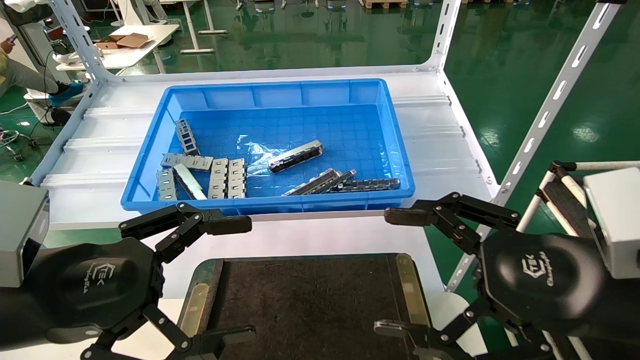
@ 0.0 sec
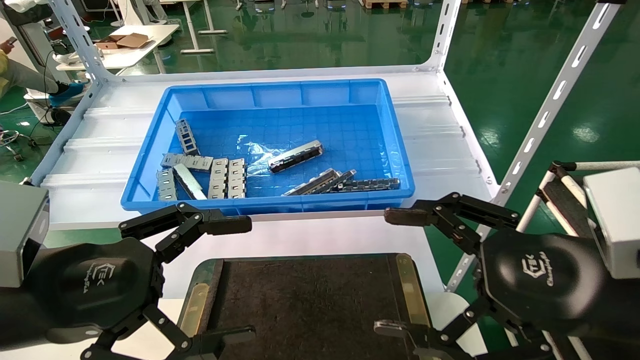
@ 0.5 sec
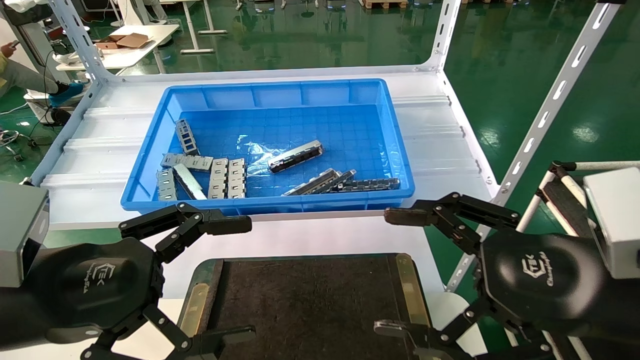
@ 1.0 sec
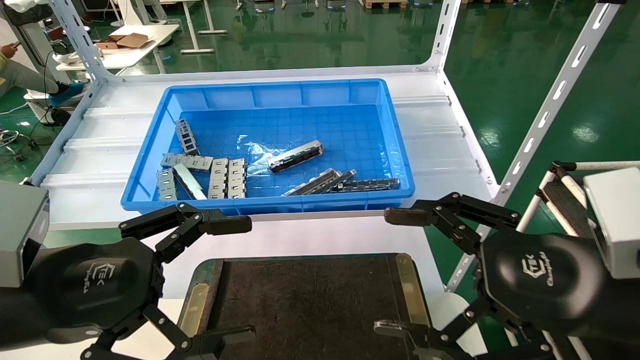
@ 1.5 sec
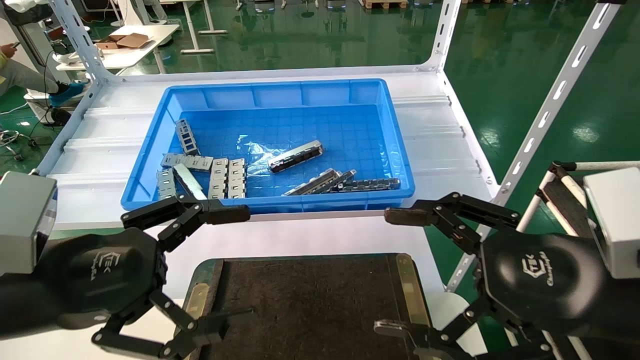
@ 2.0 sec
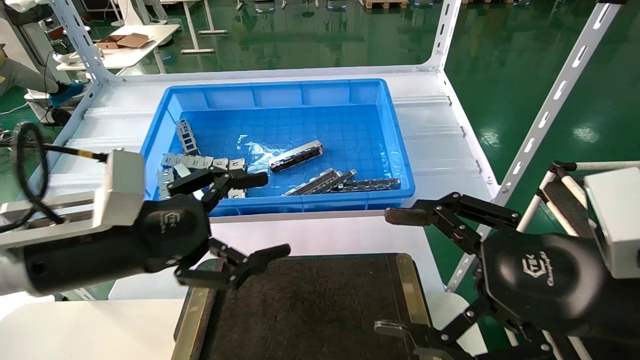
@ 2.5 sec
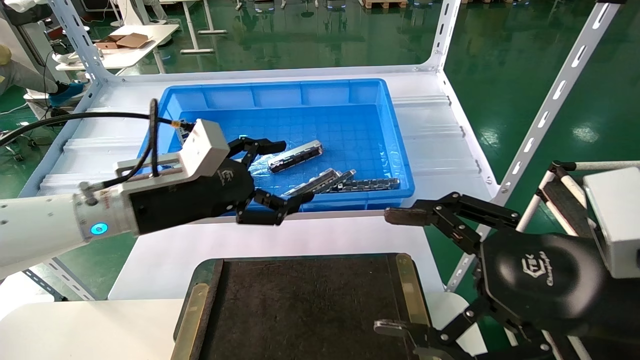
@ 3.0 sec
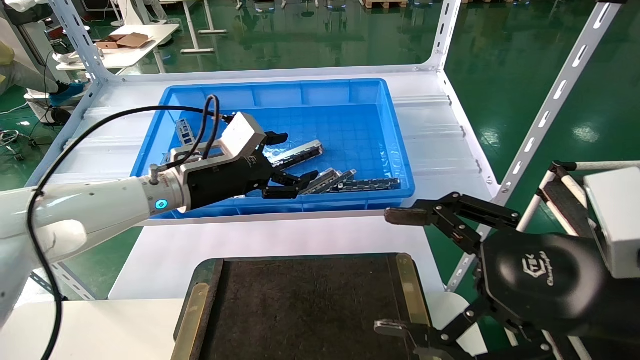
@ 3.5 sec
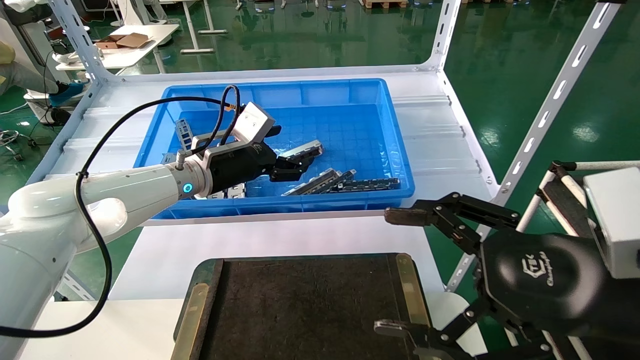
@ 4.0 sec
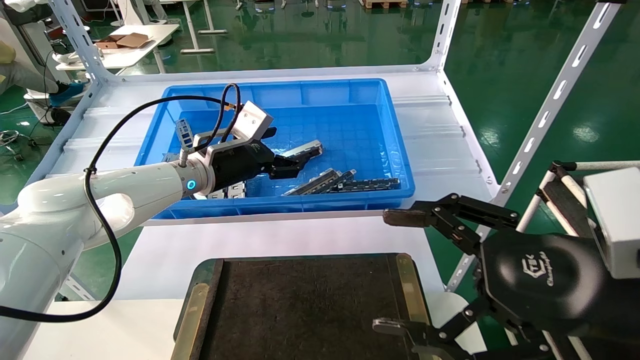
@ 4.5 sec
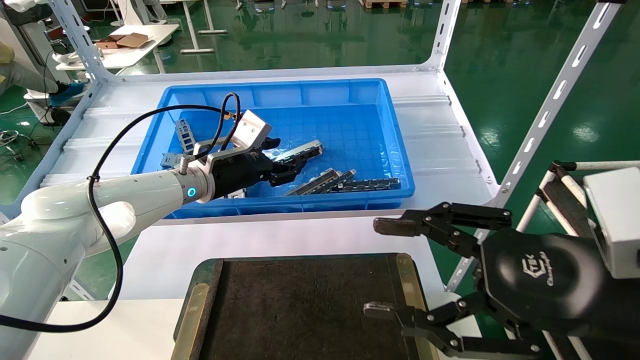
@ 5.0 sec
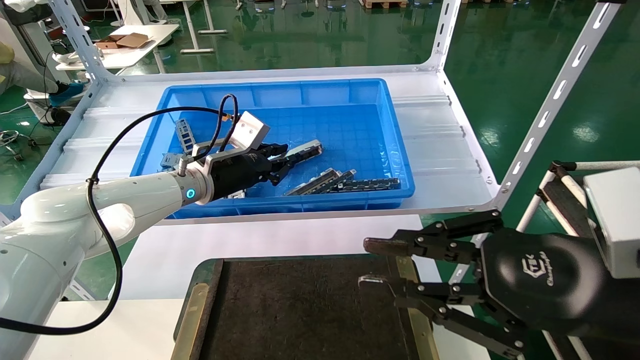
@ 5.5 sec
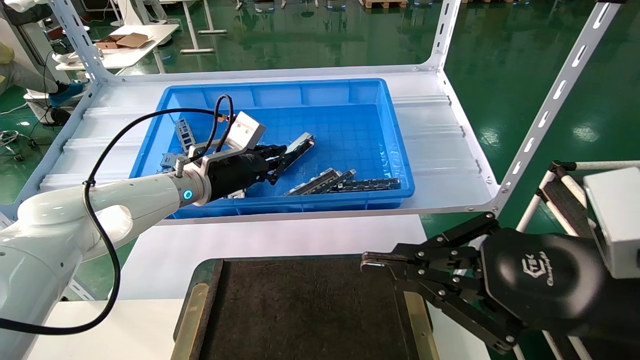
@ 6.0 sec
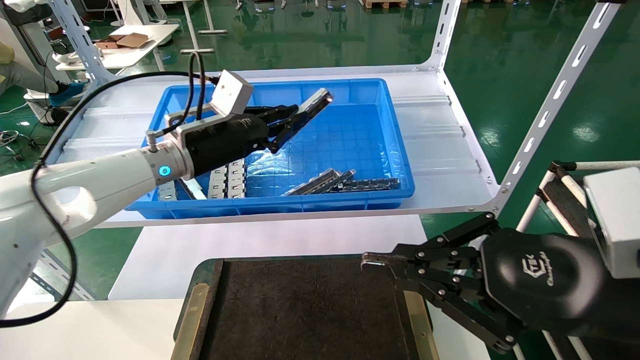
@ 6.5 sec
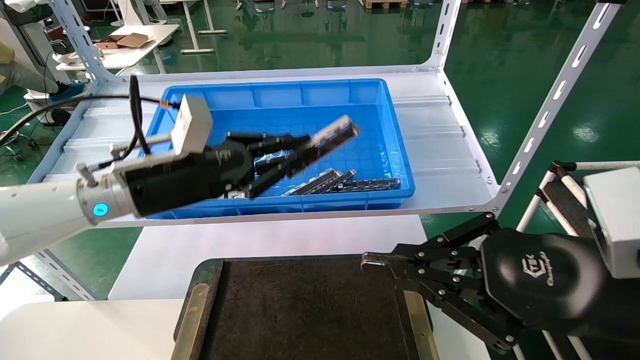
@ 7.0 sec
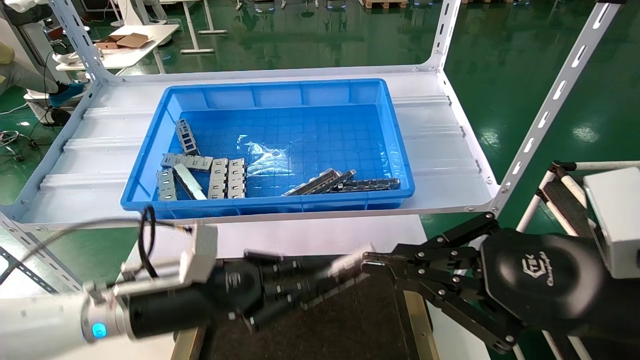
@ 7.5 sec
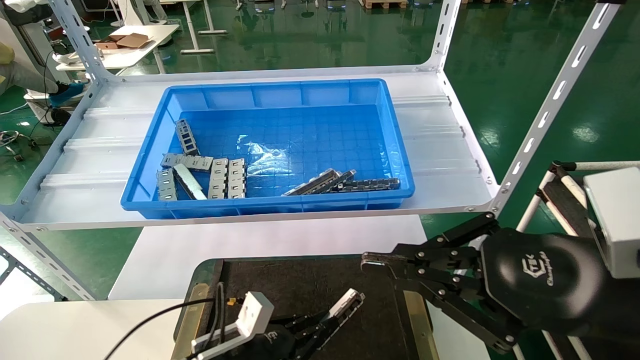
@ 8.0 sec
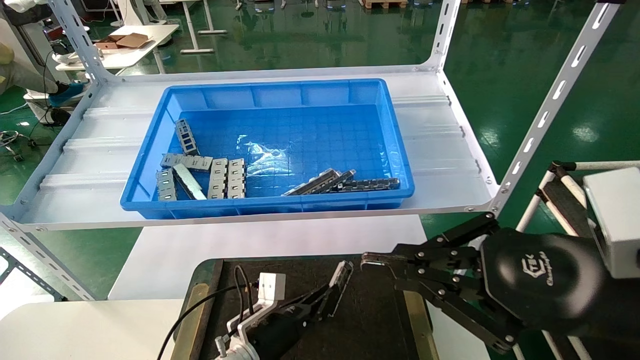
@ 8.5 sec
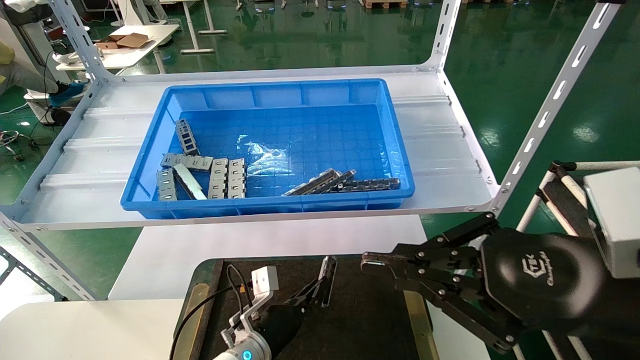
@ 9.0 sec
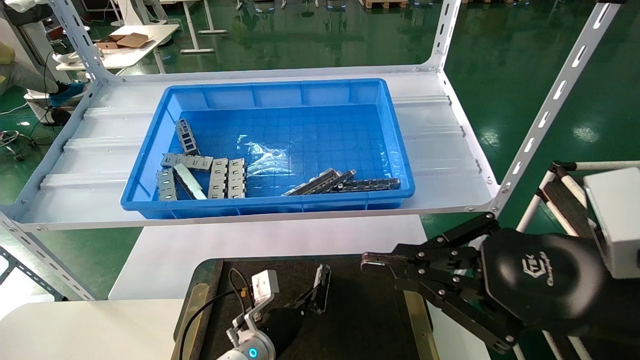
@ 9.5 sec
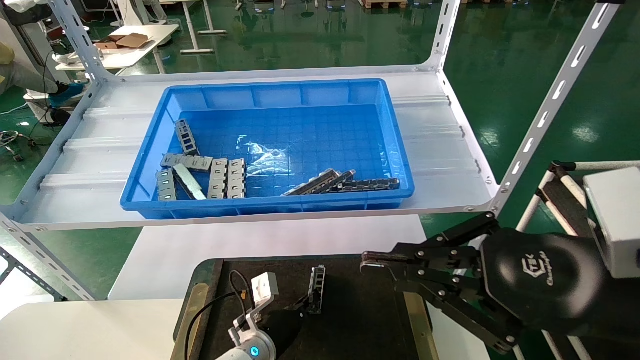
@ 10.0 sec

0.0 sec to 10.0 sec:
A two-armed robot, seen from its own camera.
Task of the whole recording: Grasp the part with one hand and place it on the black container.
Step, 2.5 sec to 5.5 sec: Pick up the front USB bracket from the feeding area.
0.0 sec to 2.0 sec: Both grippers stay about where they are.
2.0 sec to 4.0 sec: The left gripper moves forward, approximately 25 cm.
4.0 sec to 6.0 sec: The left gripper closes; the right gripper closes its fingers.
6.0 sec to 8.0 sec: The left gripper heads downward and backward, covering roughly 30 cm.
8.0 sec to 10.0 sec: The left gripper moves forward and to the right, roughly 10 cm.

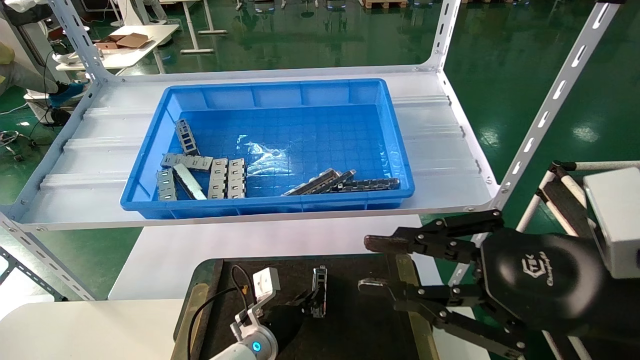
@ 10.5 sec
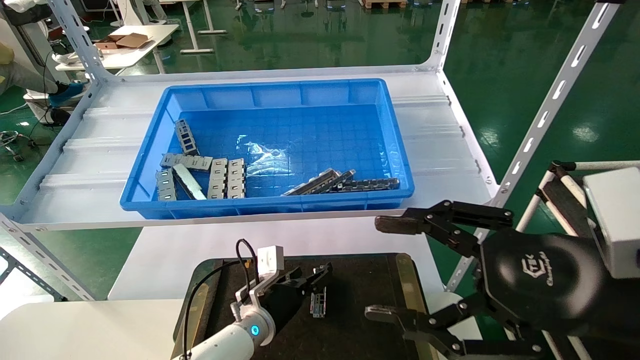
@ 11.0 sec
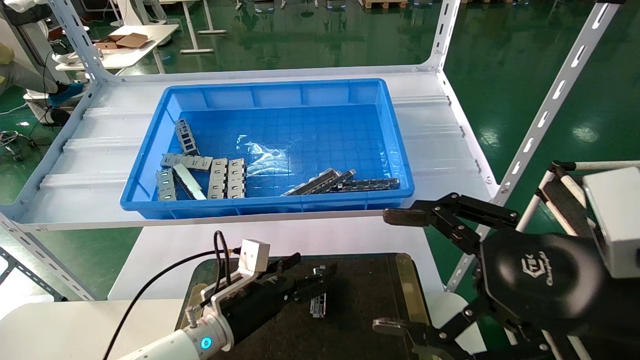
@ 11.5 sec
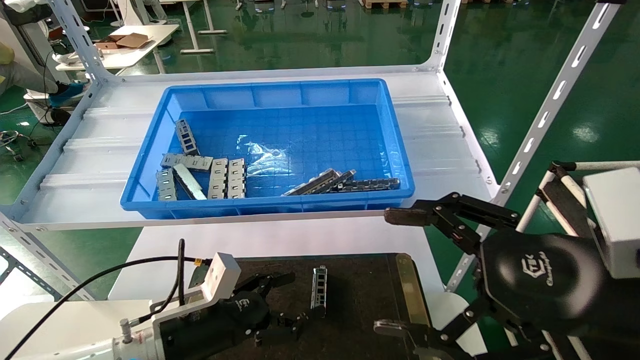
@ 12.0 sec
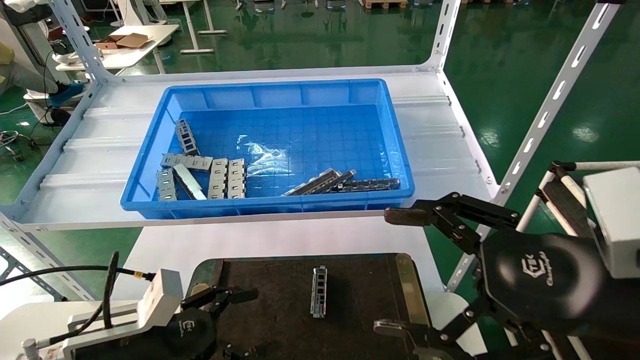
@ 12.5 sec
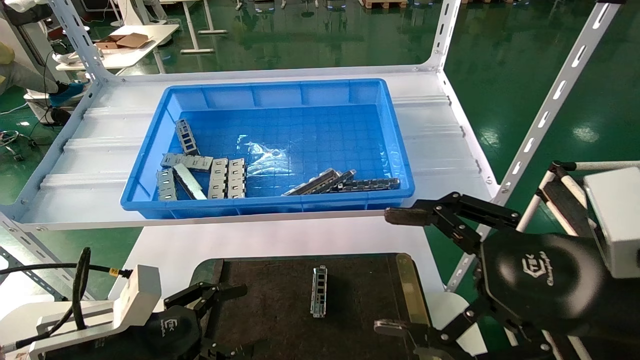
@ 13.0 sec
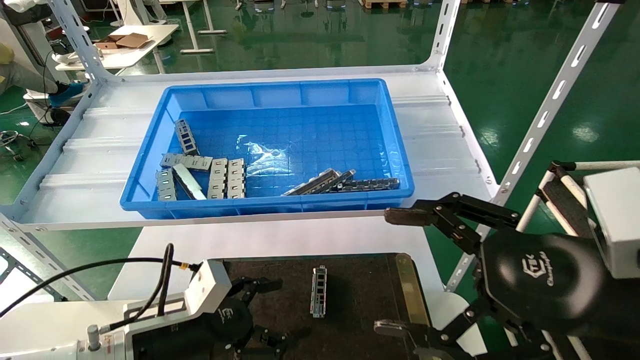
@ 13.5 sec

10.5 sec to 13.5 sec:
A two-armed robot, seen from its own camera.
Task of the whole recording: Grasp the part with one hand and place it on the black container.
10.5 sec to 12.0 sec: The right gripper opens, while the left gripper heads to the left, upward and backward, covering some 20 cm, and opens up.

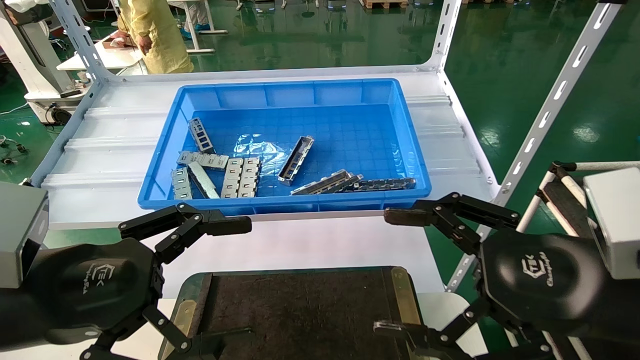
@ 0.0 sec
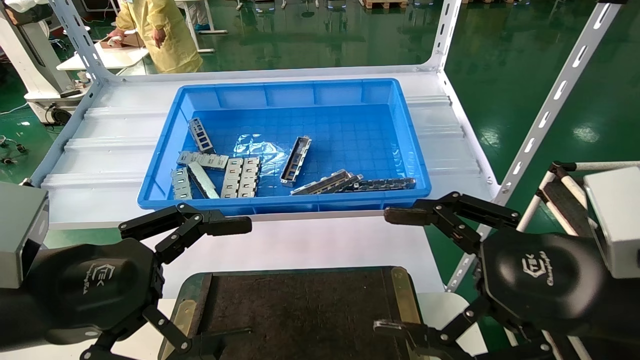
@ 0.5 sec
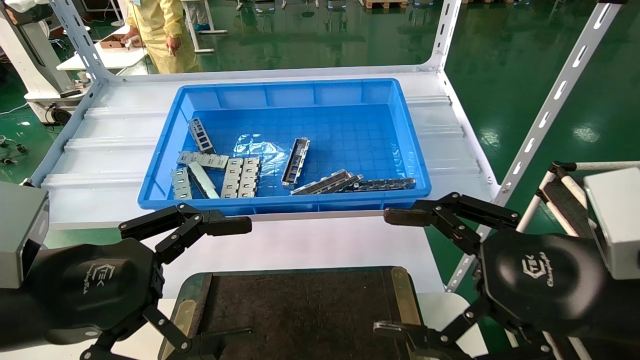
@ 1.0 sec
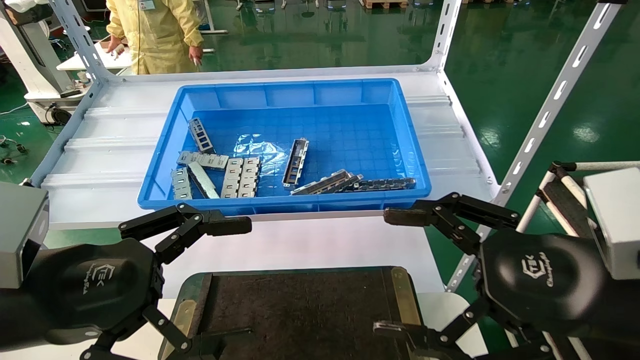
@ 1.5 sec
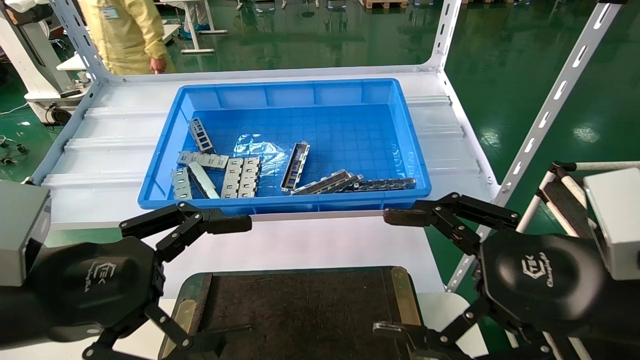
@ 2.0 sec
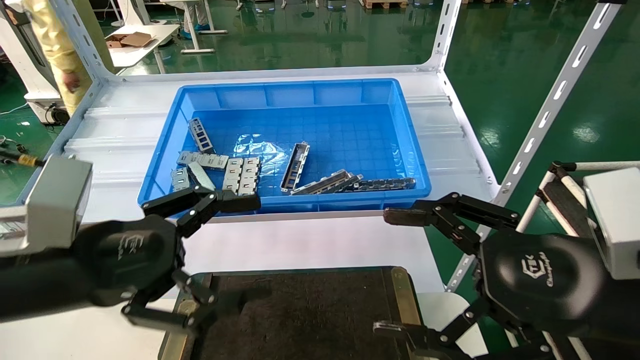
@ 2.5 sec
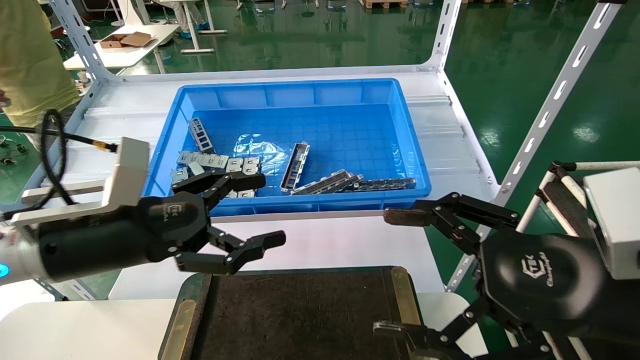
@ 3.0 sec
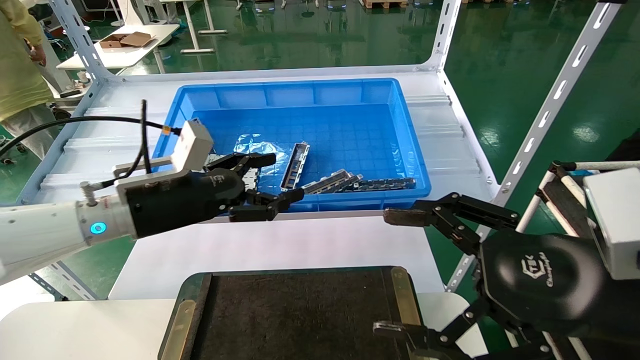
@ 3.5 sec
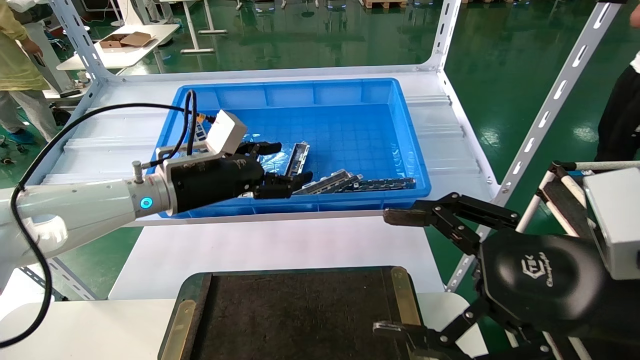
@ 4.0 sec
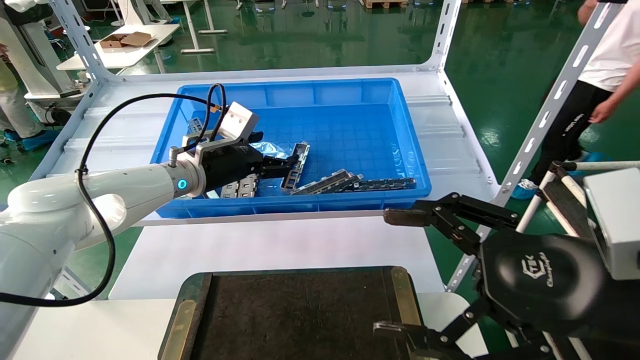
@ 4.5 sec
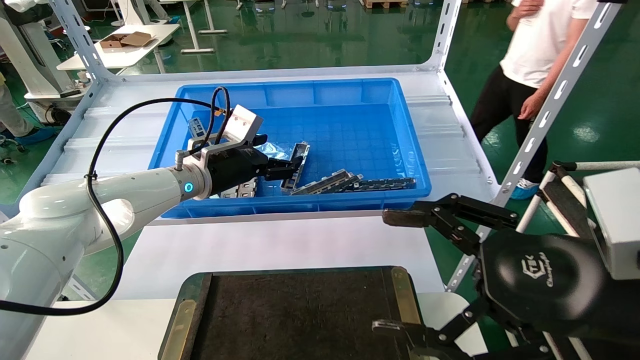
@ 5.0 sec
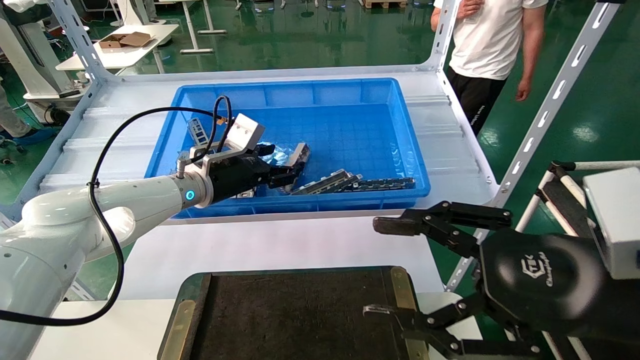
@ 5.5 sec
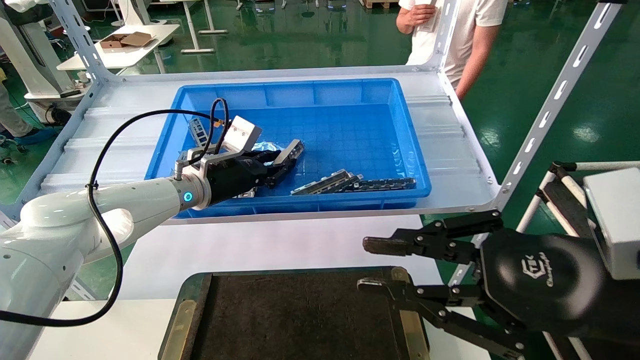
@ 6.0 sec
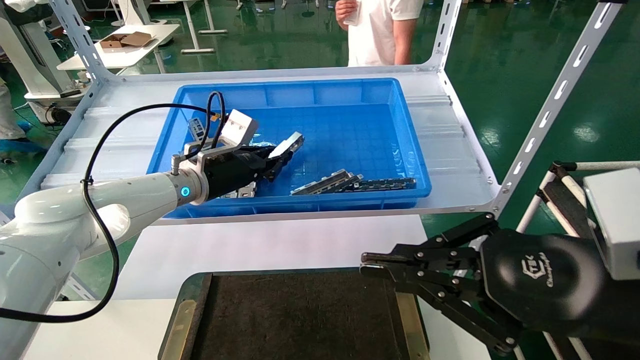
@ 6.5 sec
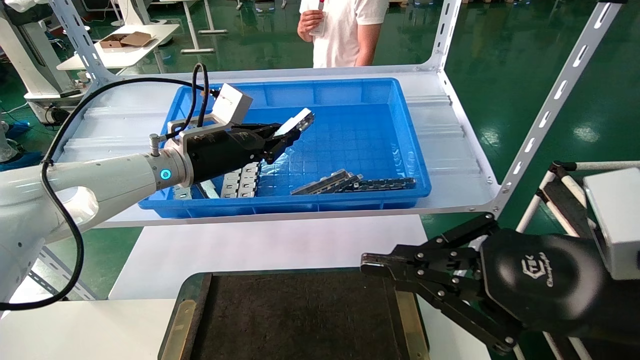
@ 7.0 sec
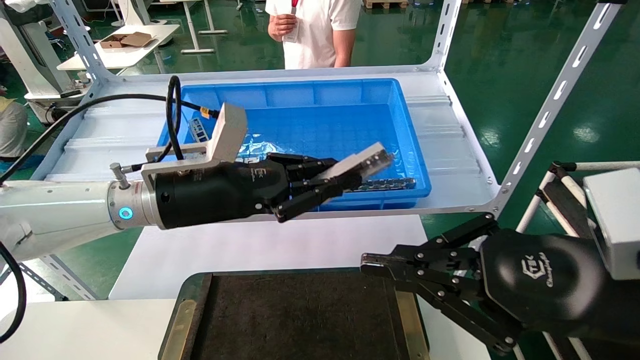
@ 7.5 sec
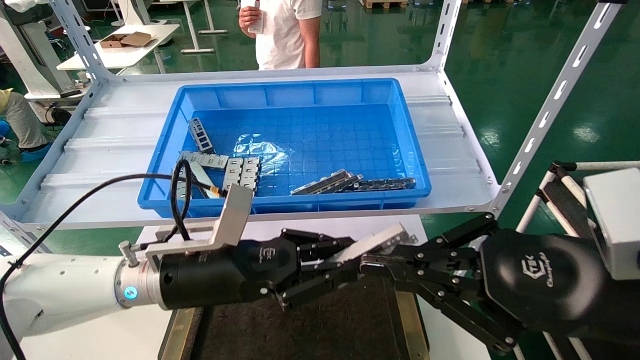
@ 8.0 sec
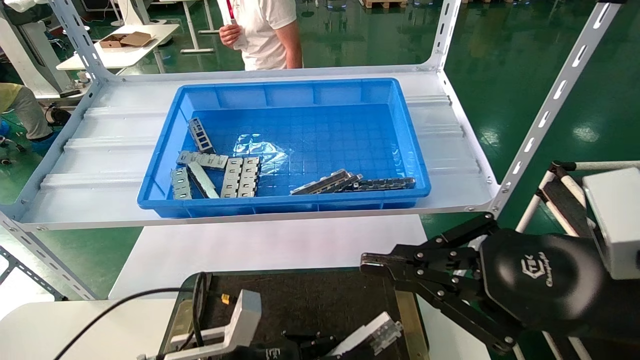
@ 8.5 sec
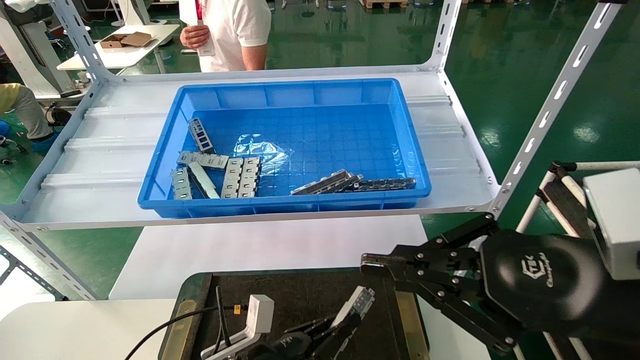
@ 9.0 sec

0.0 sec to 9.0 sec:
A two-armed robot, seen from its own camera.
Task of the whole recording: Grasp the part with one hand and place it on the black container.
Step, 4.0 sec to 7.5 sec: Pick up the front USB bracket from the feeding area.
0.0 sec to 2.0 sec: Both grippers stay about where they are.
2.0 sec to 4.5 sec: The left gripper is displaced forward by some 30 cm.
4.5 sec to 7.0 sec: The right gripper closes; the left gripper closes its fingers.
7.0 sec to 9.0 sec: The left gripper goes approximately 35 cm downward and backward.
